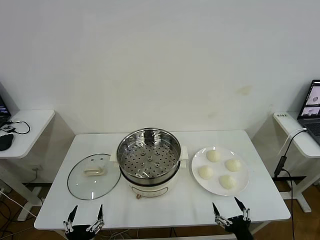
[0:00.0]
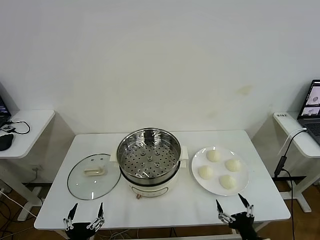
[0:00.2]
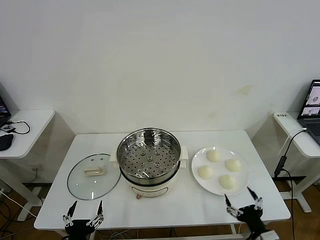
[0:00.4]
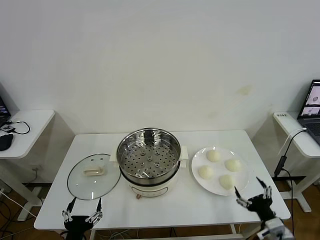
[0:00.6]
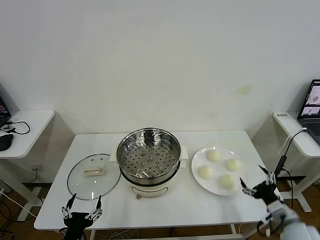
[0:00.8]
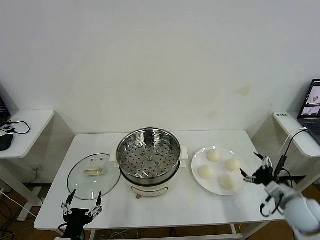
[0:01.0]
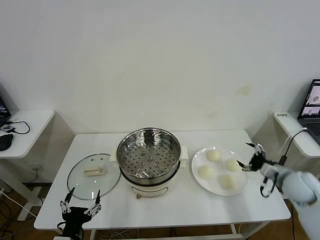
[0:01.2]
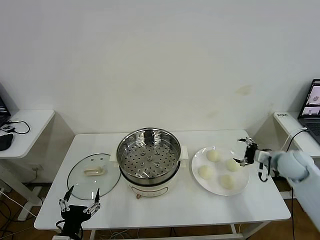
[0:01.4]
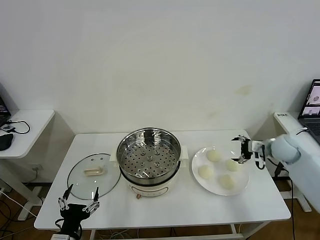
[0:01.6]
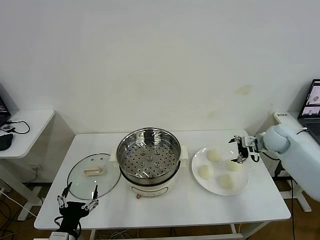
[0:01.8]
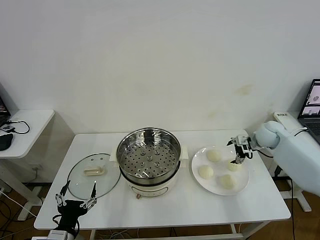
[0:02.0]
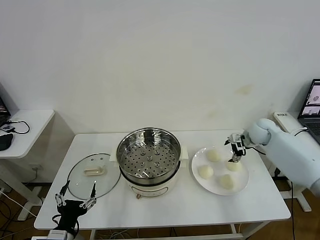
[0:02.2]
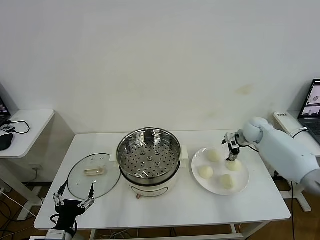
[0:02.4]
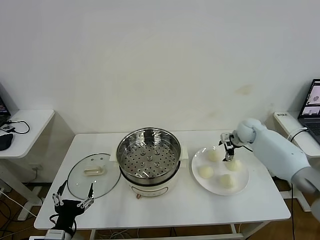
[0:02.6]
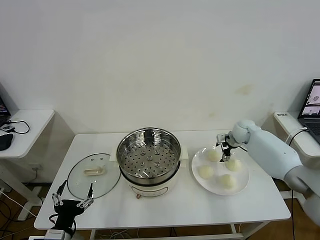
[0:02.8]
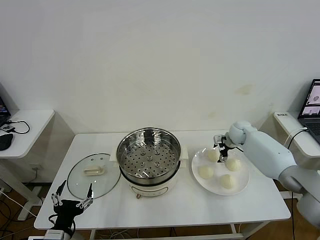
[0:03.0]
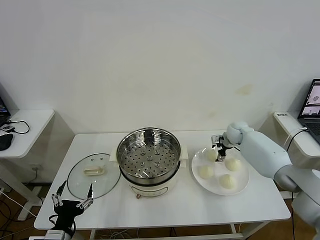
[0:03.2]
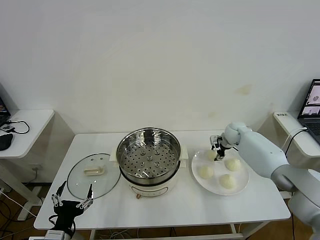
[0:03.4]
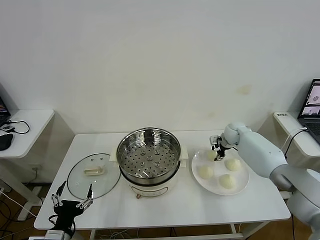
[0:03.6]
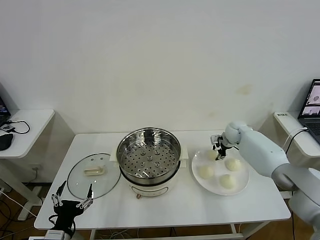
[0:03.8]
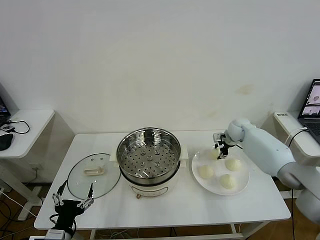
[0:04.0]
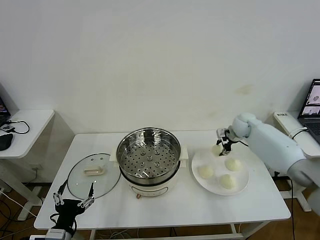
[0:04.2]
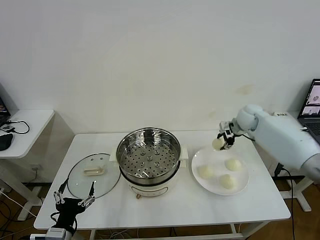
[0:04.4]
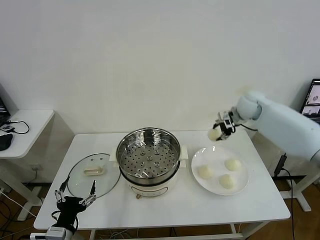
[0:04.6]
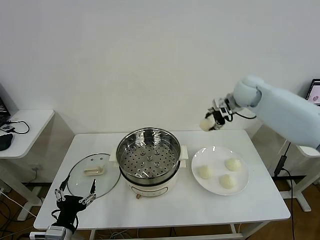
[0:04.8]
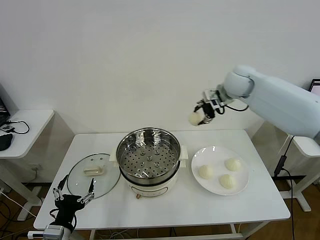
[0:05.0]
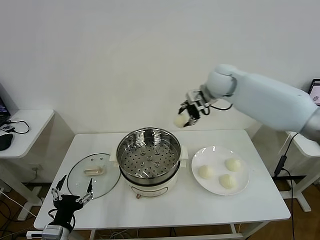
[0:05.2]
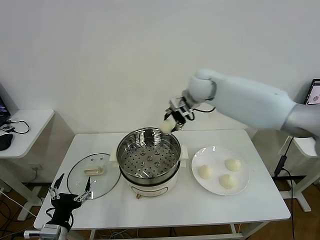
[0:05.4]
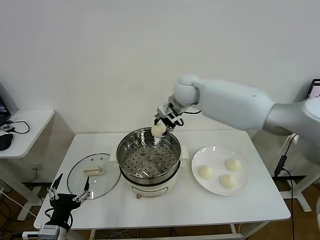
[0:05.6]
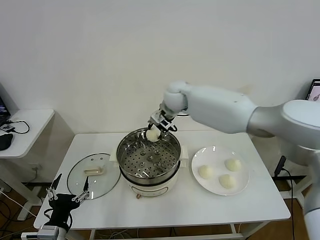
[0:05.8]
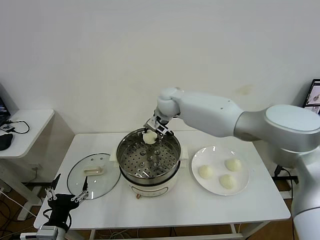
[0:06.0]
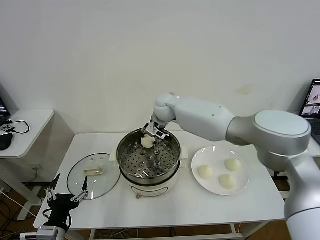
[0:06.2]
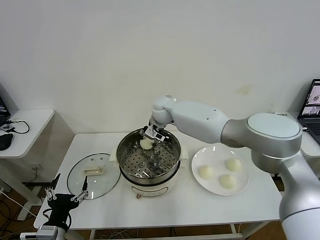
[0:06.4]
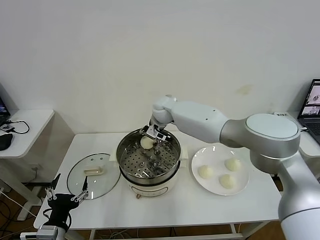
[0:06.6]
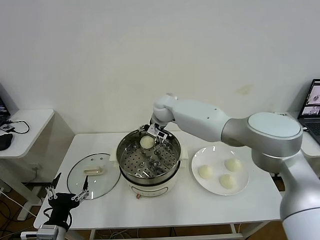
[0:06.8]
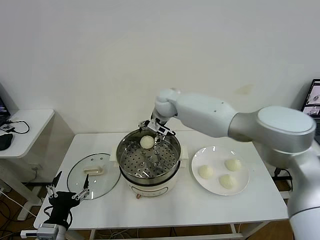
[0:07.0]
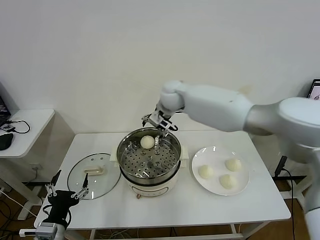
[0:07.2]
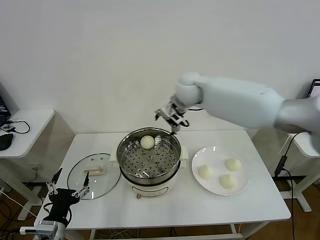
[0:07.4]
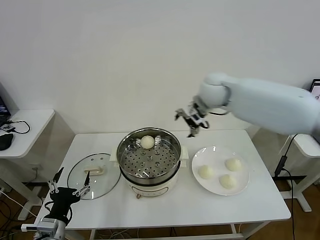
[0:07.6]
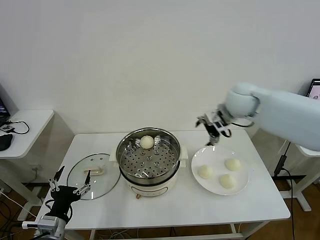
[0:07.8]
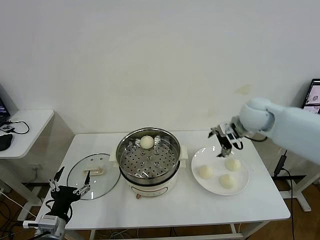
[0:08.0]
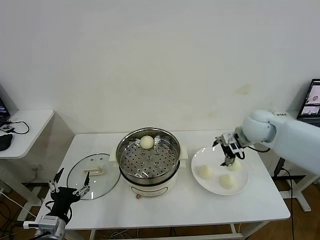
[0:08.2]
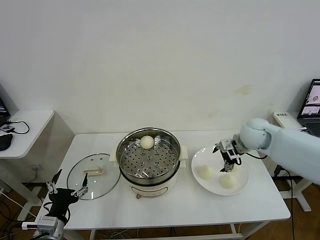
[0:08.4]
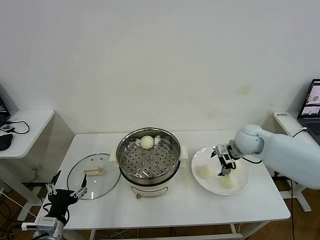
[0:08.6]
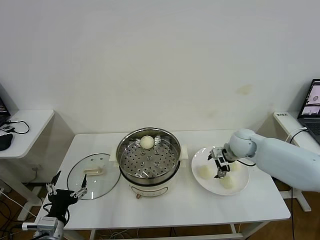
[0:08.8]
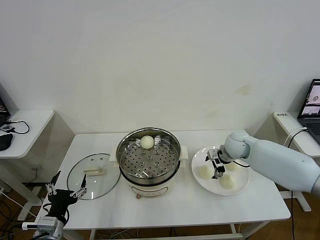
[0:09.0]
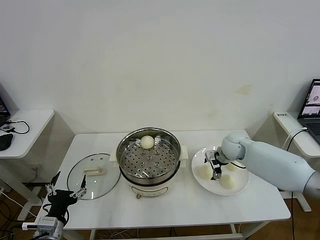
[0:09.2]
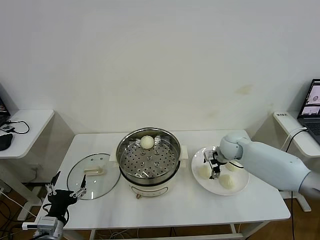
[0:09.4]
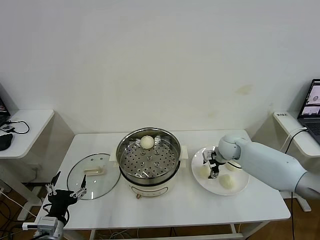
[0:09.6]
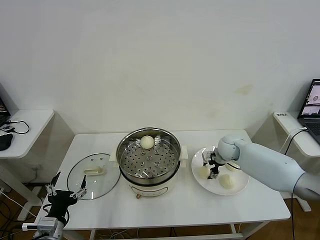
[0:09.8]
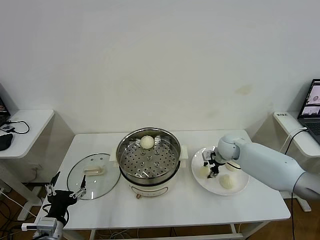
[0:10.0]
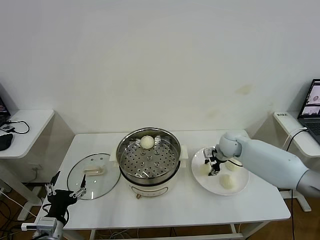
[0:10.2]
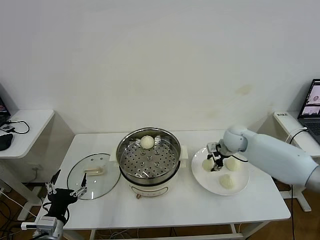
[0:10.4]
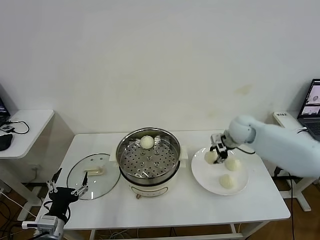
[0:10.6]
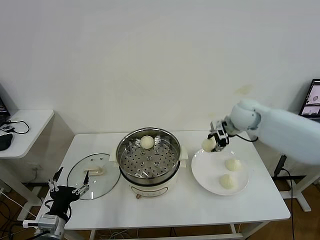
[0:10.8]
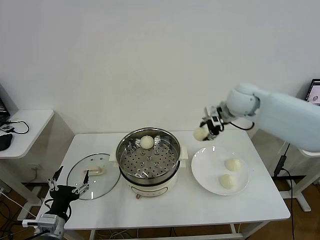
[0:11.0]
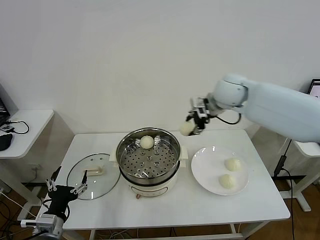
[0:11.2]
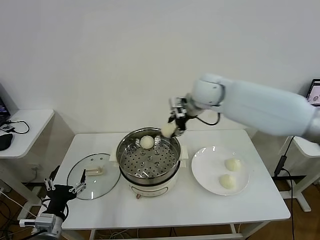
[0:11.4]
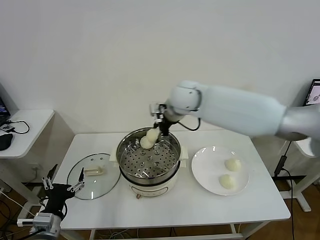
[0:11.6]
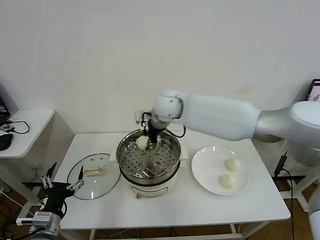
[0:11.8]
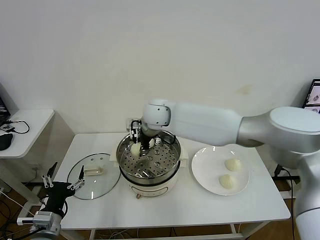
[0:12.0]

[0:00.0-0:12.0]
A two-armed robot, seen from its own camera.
Task of the whole recording: take steamed baozi put them in steamer then cover it.
Step, 0:00.0 to 0:03.8: Grasp the baozi in the plate with right gripper.
Step, 0:04.0 to 0:06.8: Place the baozi on the steamer with right gripper.
Step, 0:07.0 to 0:10.2: Grasp the baozi in the plate with right gripper.
0:01.6 to 0:03.0: The right gripper shifts some 15 cm forward, to the left and downward.
0:03.0 to 0:04.4: The right gripper shifts about 10 cm upward, and closes its fingers.
0:04.4 to 0:06.0: The right gripper heads to the left, covering approximately 30 cm.
0:06.0 to 0:07.6: The right gripper is displaced to the right and upward by some 15 cm, and opens.
0:07.6 to 0:09.0: The right gripper heads downward and to the right, covering some 25 cm.
0:09.0 to 0:10.4: The right gripper closes its fingers.
0:10.4 to 0:12.0: The right gripper goes approximately 30 cm to the left and upward.

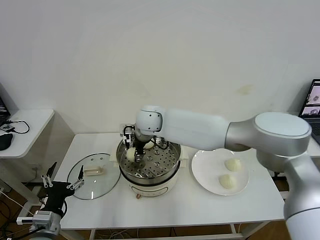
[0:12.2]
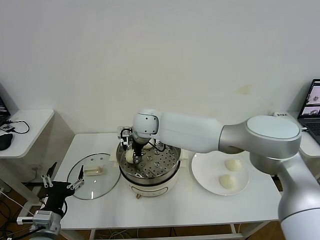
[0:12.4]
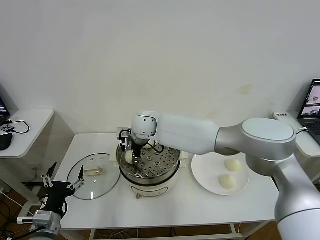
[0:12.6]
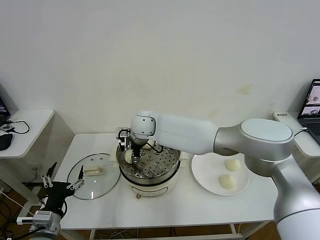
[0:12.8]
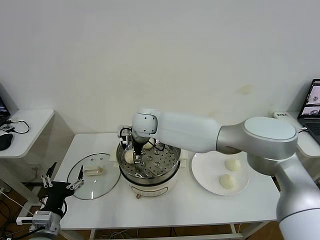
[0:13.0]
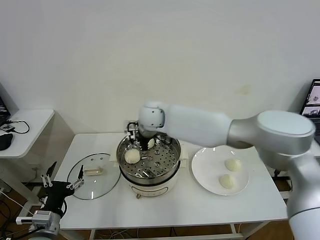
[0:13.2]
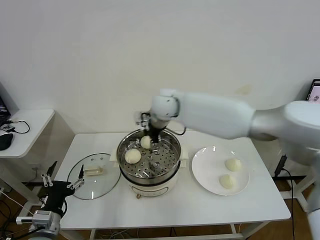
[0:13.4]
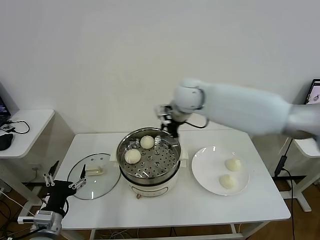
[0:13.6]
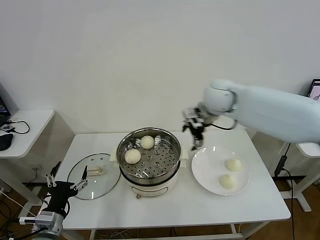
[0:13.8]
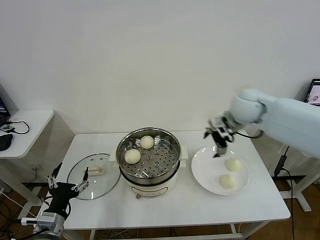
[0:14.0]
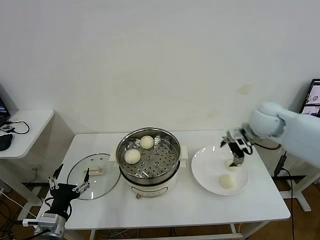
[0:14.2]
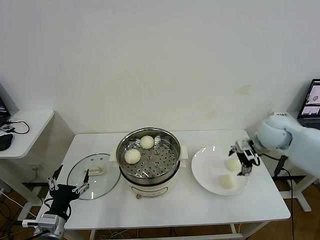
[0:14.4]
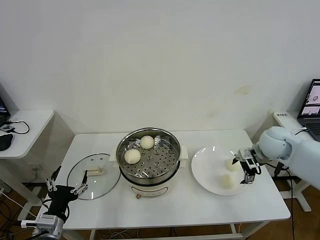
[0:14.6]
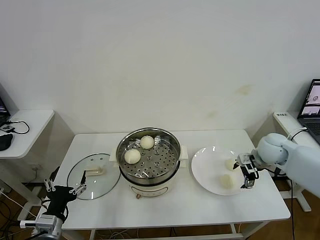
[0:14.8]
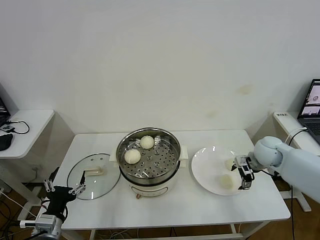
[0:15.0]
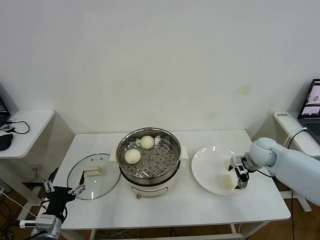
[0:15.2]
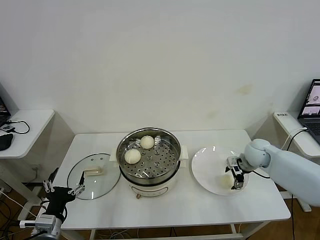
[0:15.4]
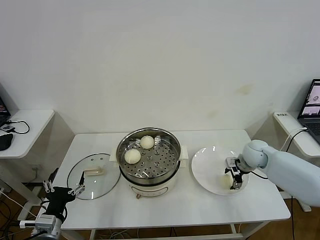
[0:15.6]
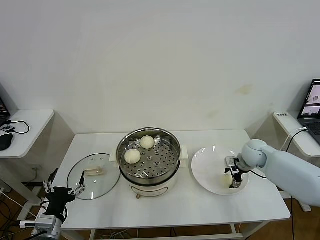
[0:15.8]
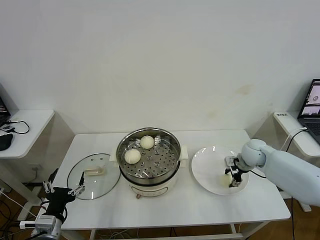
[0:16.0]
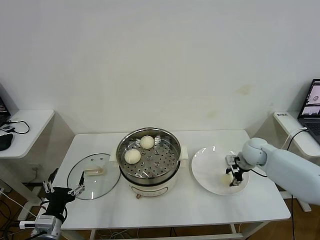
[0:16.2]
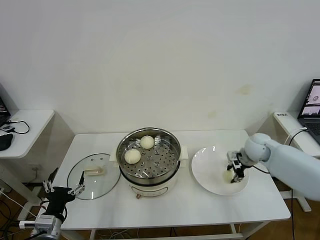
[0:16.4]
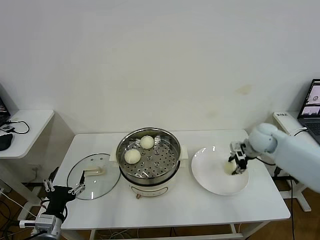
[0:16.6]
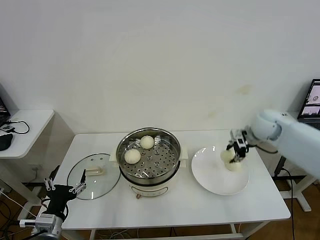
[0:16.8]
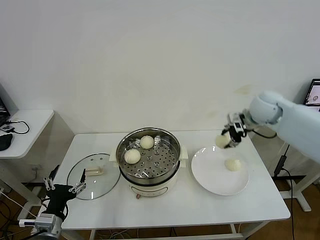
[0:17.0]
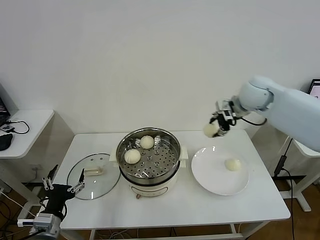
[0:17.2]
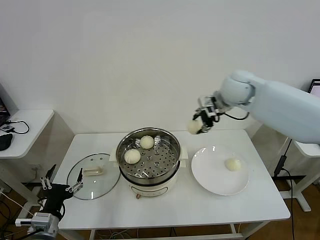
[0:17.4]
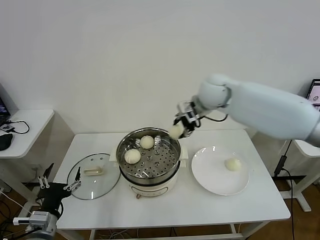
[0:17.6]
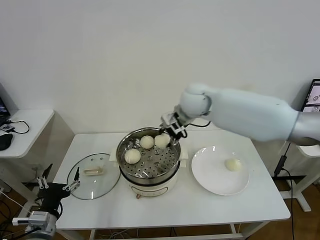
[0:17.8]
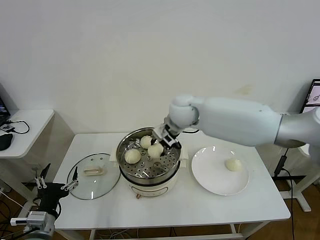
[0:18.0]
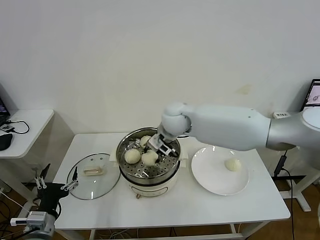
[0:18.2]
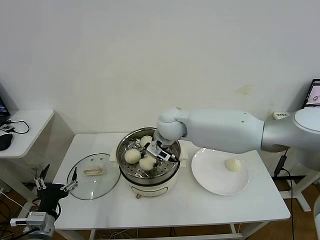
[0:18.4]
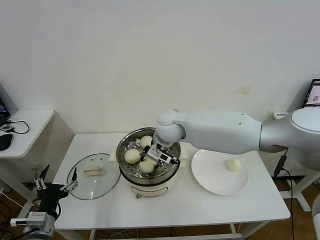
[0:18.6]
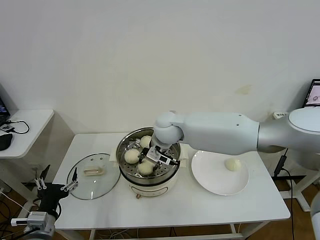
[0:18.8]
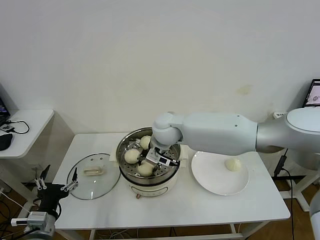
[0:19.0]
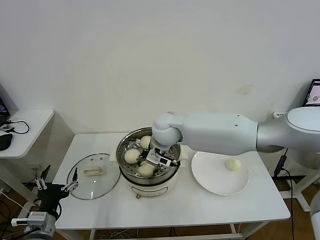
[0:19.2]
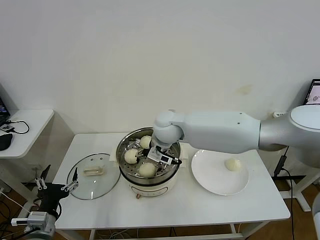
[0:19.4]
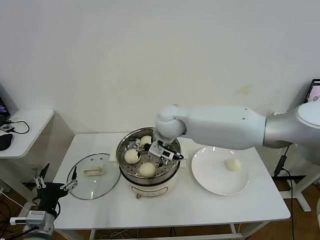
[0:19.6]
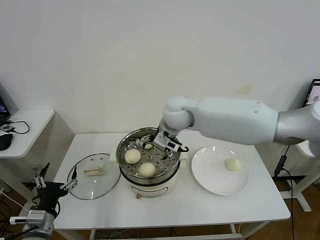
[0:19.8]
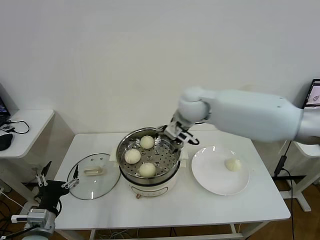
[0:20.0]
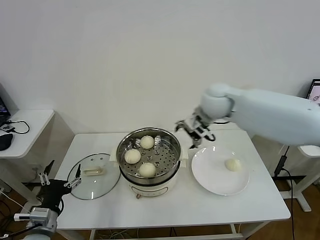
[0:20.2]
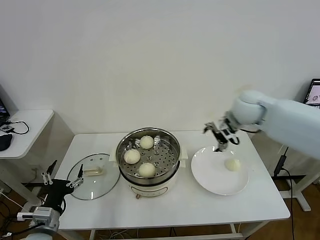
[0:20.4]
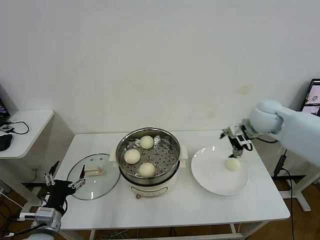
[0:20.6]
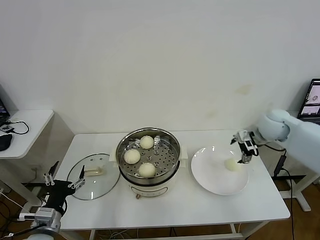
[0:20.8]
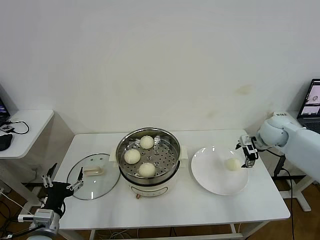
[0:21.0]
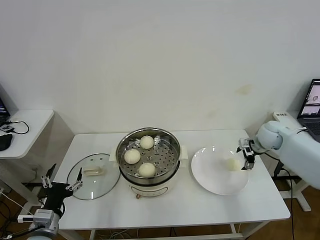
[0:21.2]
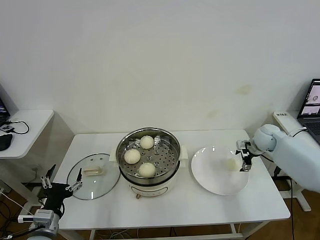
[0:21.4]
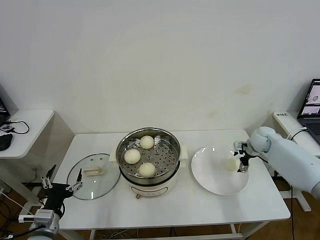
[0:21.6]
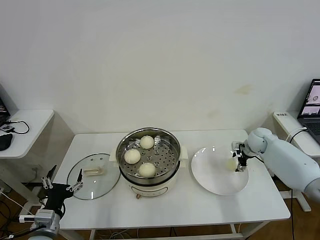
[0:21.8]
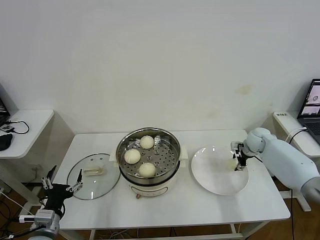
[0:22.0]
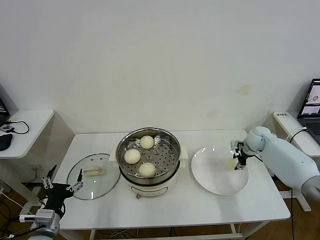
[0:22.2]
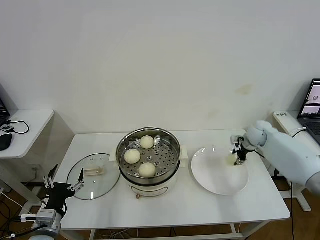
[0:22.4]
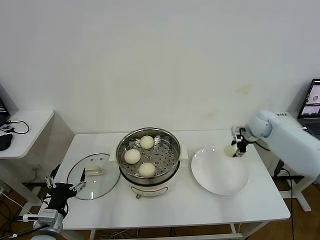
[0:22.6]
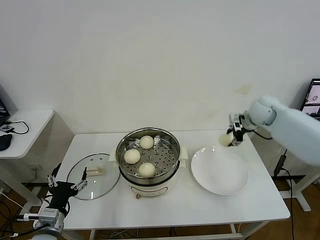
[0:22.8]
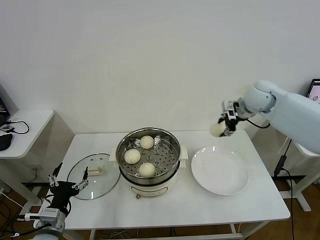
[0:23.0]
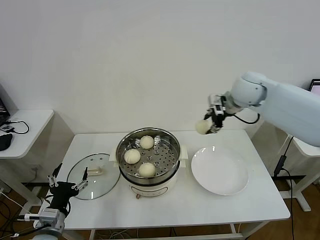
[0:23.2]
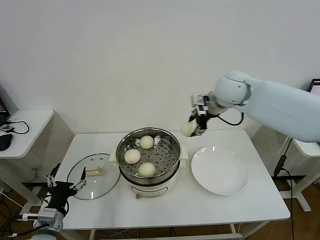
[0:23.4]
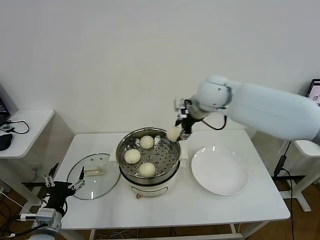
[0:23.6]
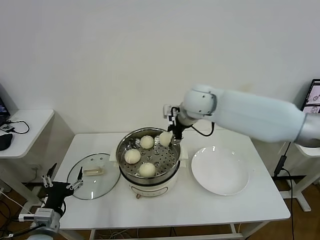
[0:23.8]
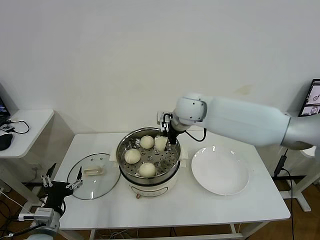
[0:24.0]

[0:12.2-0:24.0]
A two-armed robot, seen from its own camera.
Task of the whole recording: take steamed baozi put them in steamer then cover it.
Step, 0:13.2 to 0:16.2: Grasp the baozi in the plate with right gripper.
Step, 0:16.4 to 0:19.4: Place the baozi on the steamer with right gripper.
Step, 0:19.6 to 0:22.2: Grasp the baozi in the plate with right gripper.
0:12.2 to 0:13.6: The right gripper travels to the right and upward by approximately 15 cm, and opens.
0:13.6 to 0:15.2: The right gripper travels to the right and downward by roughly 35 cm.
0:15.2 to 0:16.6: The right gripper changes place by approximately 5 cm, and closes its fingers.
0:16.6 to 0:18.2: The right gripper shifts some 30 cm to the left.
0:18.2 to 0:19.6: The right gripper opens its fingers.
0:19.6 to 0:21.0: The right gripper shifts some 35 cm to the right.
0:21.0 to 0:22.6: The right gripper goes some 5 cm forward, moves roughly 10 cm downward and comes back, and closes its fingers.
0:22.6 to 0:24.0: The right gripper goes roughly 30 cm to the left and upward.
